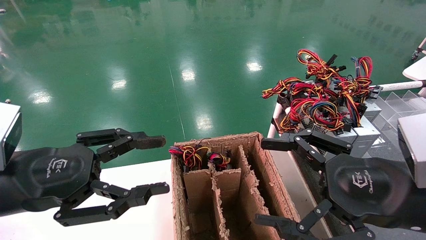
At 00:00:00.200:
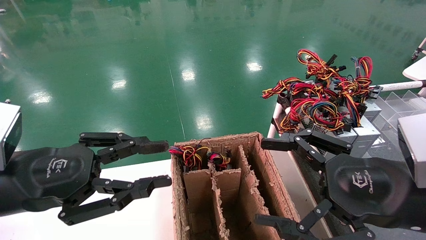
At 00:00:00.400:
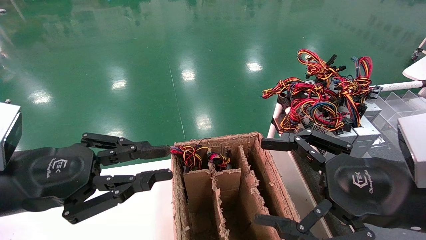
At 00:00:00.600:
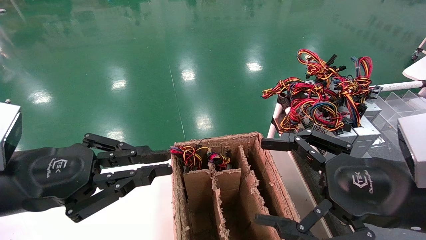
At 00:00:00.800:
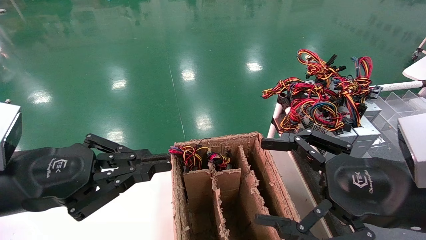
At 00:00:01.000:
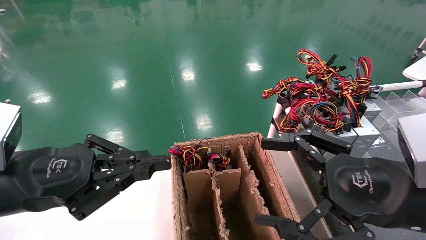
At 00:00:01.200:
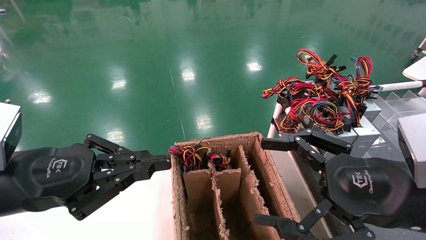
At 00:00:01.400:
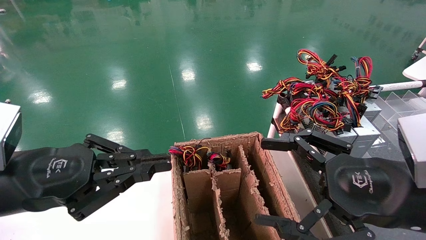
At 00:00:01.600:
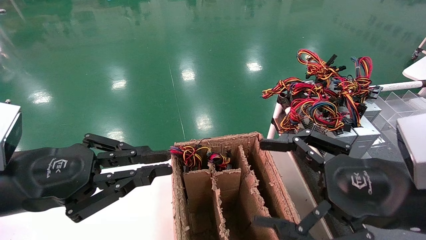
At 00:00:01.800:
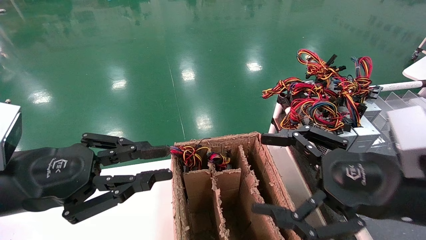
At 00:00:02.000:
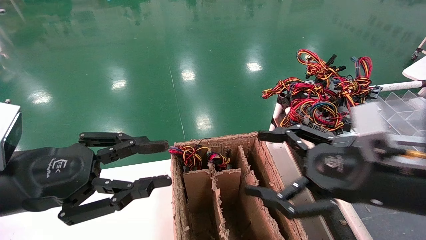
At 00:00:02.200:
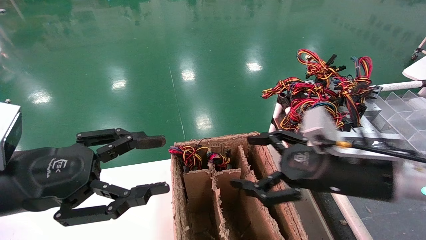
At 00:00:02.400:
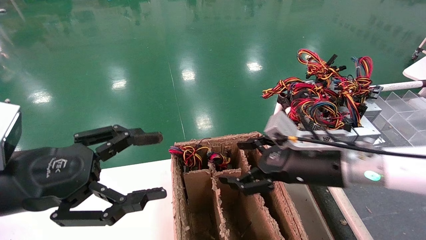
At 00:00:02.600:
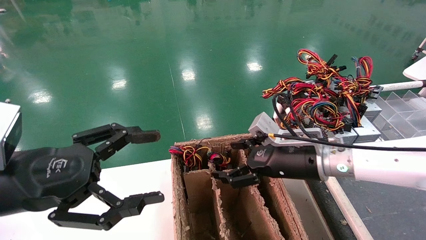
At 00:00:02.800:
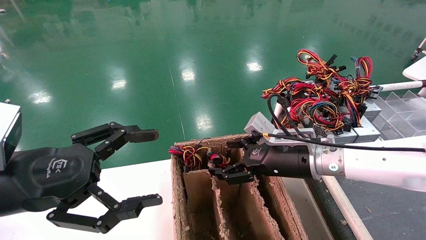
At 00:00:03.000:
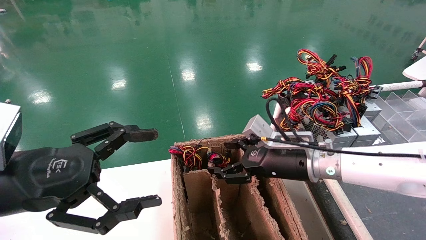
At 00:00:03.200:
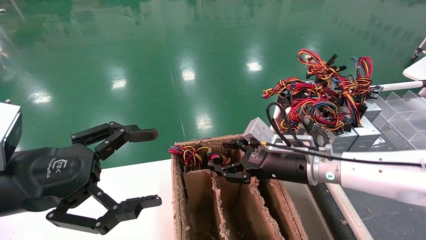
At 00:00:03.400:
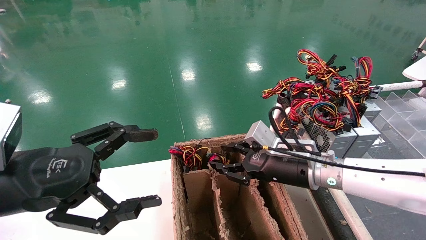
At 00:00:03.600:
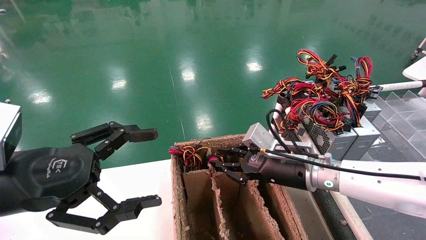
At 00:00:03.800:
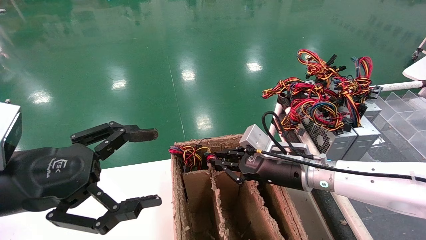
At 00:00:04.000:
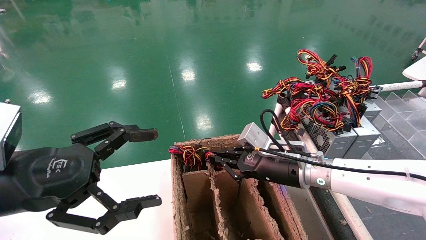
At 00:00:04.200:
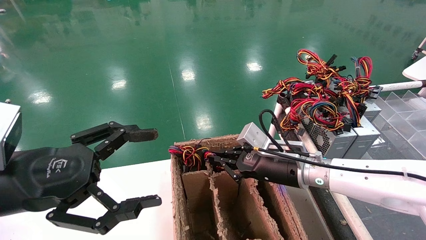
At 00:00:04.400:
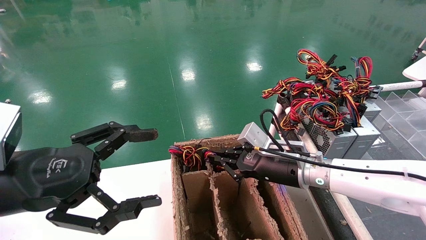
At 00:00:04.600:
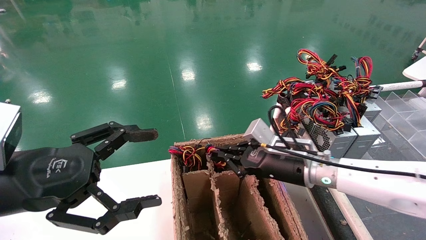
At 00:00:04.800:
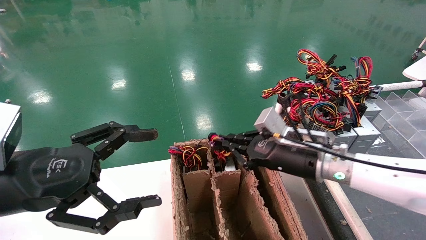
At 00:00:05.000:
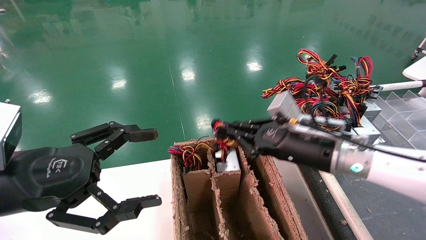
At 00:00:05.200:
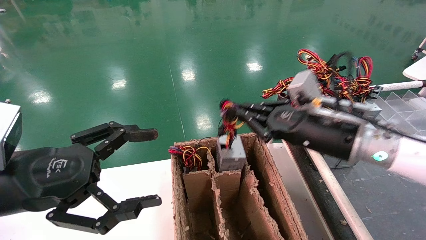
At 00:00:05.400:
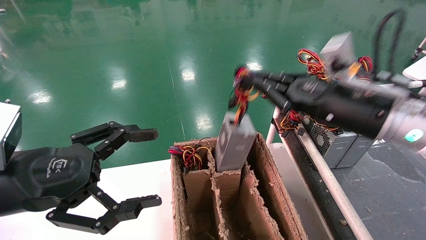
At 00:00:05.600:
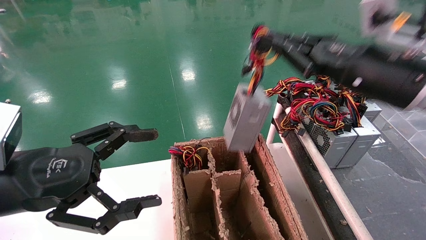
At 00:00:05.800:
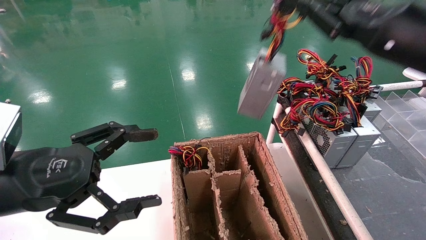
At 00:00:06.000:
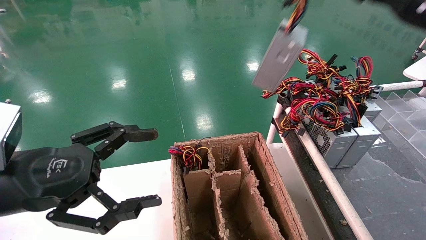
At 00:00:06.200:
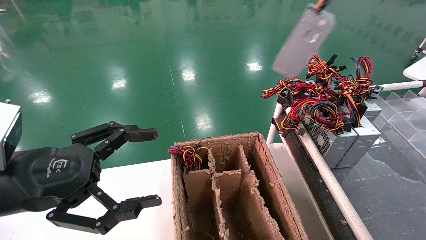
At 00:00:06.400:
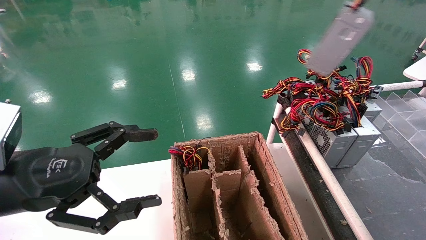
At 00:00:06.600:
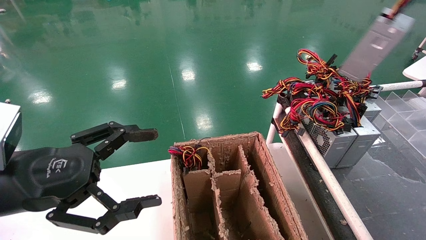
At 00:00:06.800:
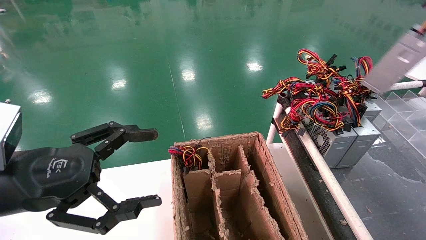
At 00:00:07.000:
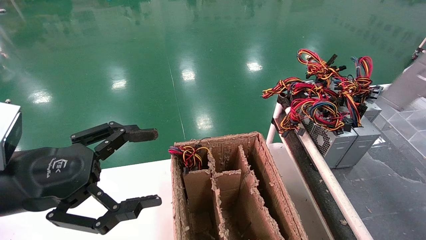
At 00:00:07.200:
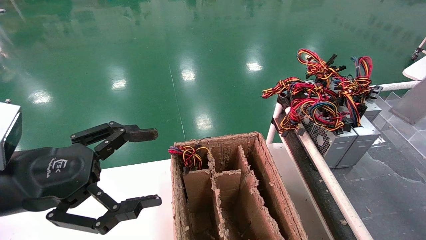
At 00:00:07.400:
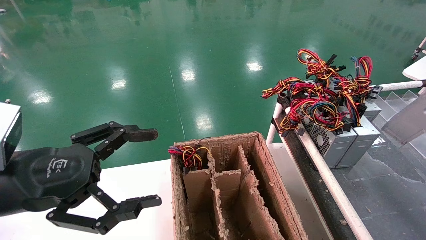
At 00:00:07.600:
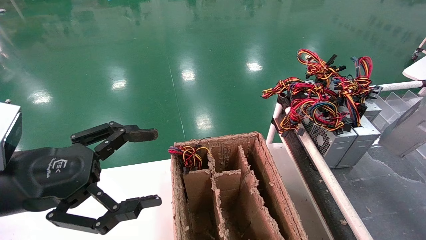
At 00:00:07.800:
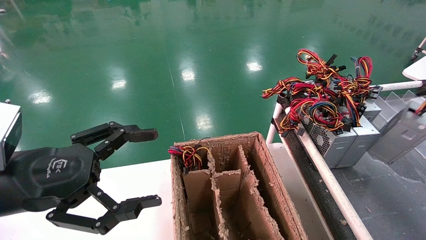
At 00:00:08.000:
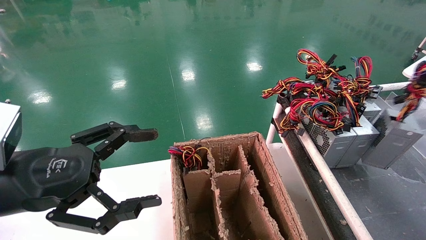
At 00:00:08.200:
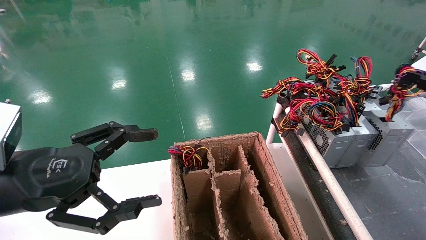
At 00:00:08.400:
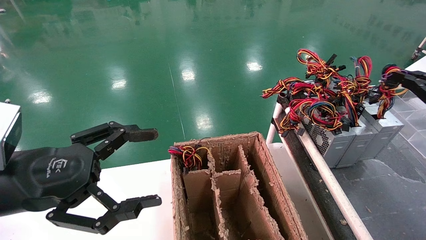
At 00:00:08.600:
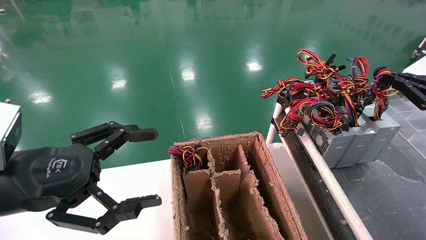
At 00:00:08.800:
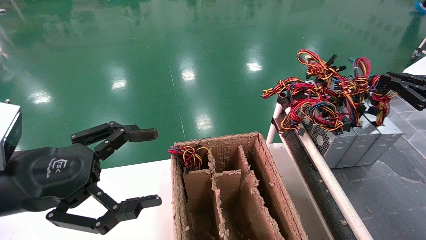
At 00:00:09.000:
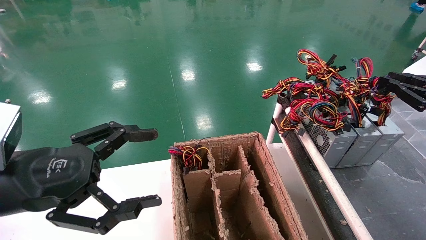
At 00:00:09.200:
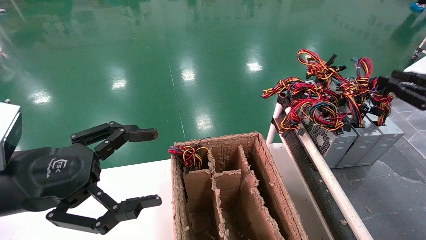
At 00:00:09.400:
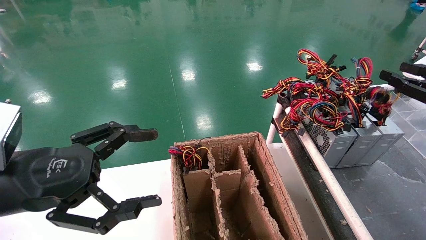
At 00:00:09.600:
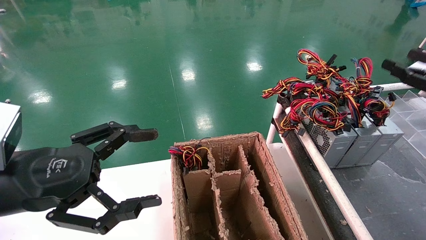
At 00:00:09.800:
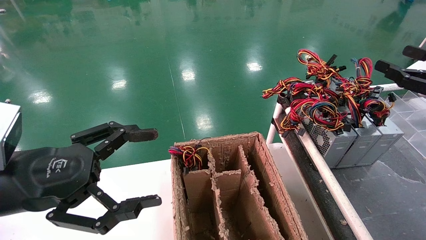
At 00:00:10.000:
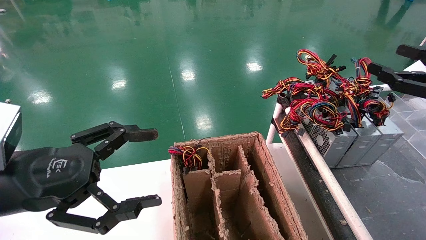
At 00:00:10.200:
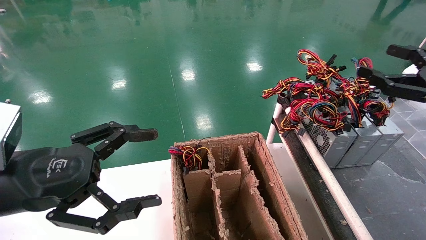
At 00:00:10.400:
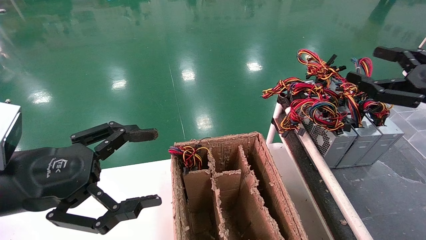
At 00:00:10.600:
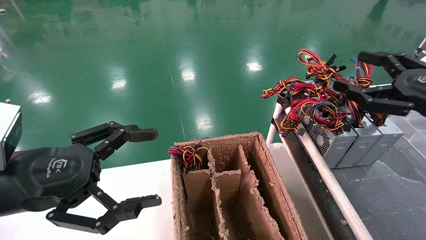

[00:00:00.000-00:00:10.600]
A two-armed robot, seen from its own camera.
Step, 00:00:01.000 to 00:00:04.400: Grab and lift the power supply from the large box.
Step, 00:00:04.600 to 00:00:08.800: Place the power supply on the operating table.
00:00:00.000 to 00:00:01.600: The left gripper closes.
00:00:01.600 to 00:00:03.000: The right gripper heads forward and to the left, covering roughly 20 cm. The left gripper opens.
00:00:03.000 to 00:00:04.600: The right gripper closes up.
00:00:04.600 to 00:00:06.000: The right gripper moves upward and to the right, approximately 30 cm.
00:00:06.000 to 00:00:07.600: The right gripper travels to the right and downward by about 25 cm.
00:00:07.600 to 00:00:09.000: The right gripper moves forward and to the left, about 10 cm.
00:00:09.000 to 00:00:10.600: The right gripper travels to the left by roughly 10 cm, and opens its fingers.
